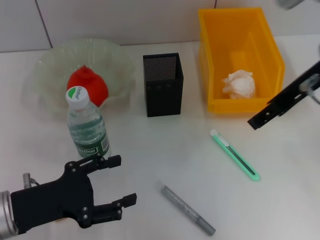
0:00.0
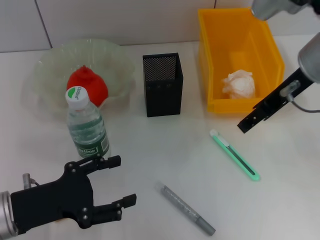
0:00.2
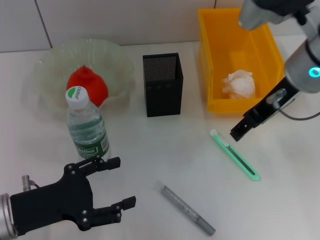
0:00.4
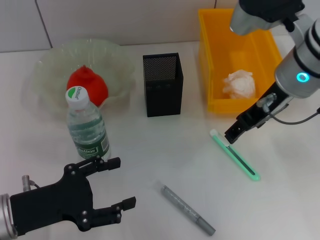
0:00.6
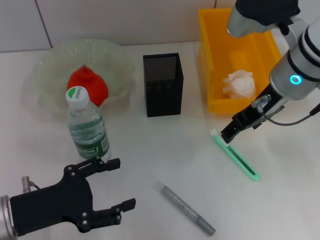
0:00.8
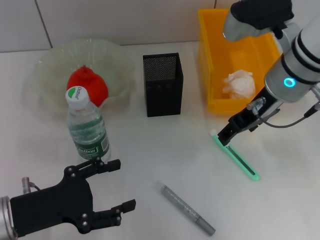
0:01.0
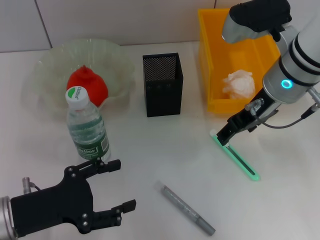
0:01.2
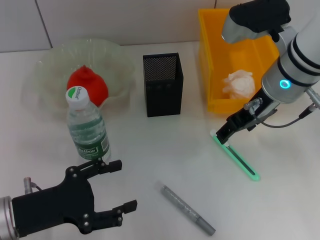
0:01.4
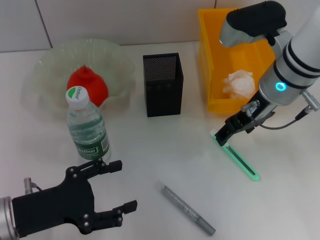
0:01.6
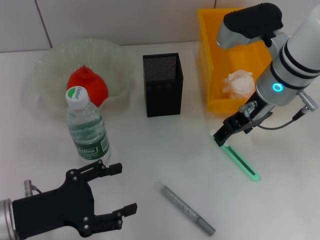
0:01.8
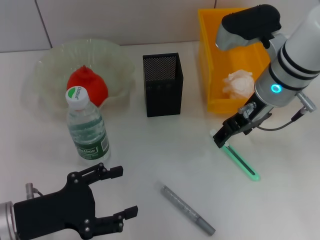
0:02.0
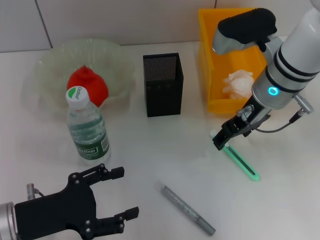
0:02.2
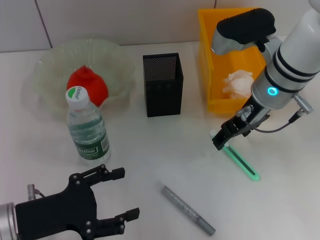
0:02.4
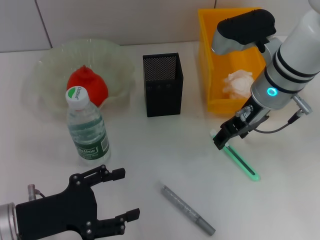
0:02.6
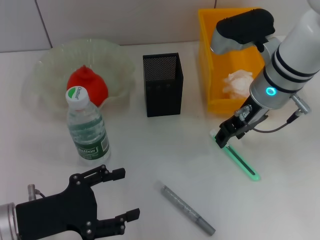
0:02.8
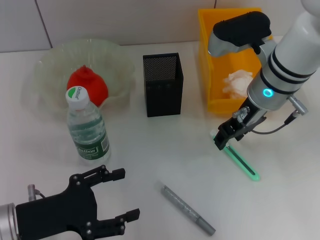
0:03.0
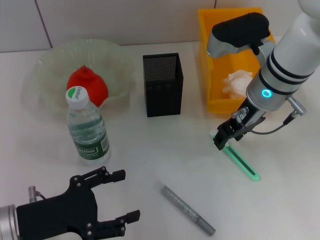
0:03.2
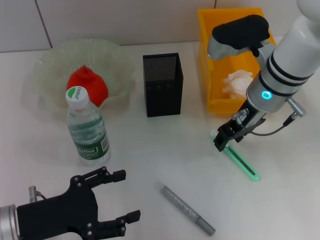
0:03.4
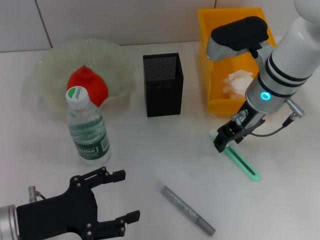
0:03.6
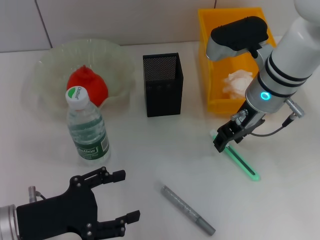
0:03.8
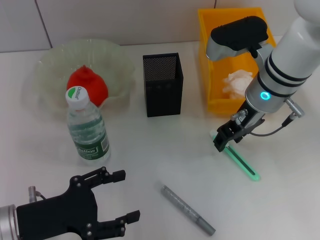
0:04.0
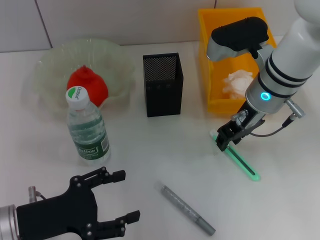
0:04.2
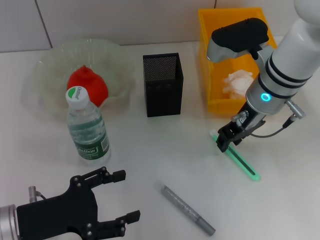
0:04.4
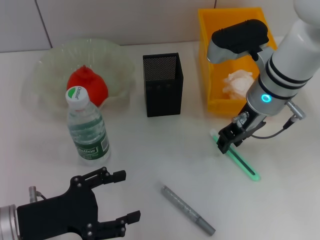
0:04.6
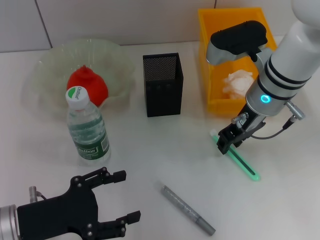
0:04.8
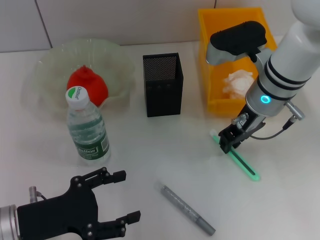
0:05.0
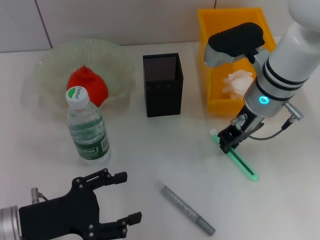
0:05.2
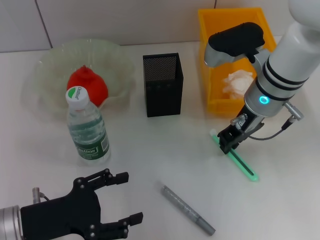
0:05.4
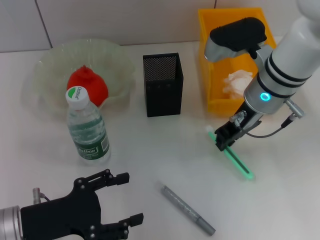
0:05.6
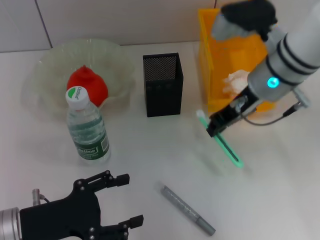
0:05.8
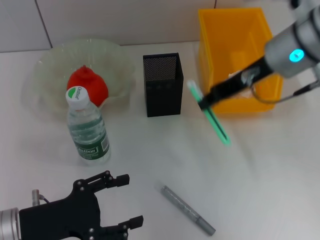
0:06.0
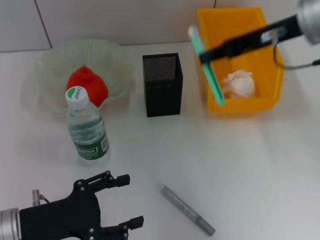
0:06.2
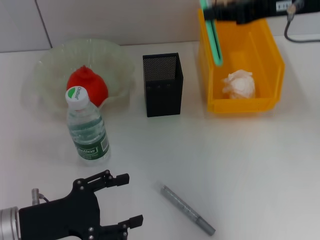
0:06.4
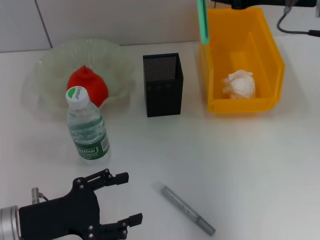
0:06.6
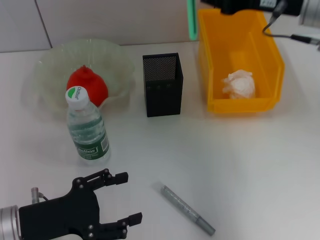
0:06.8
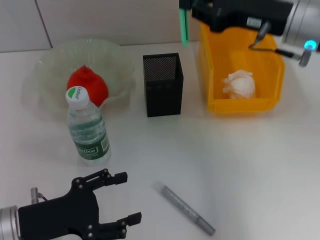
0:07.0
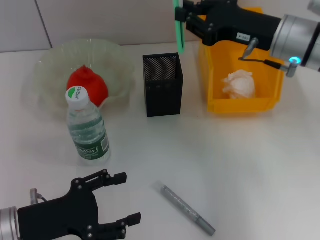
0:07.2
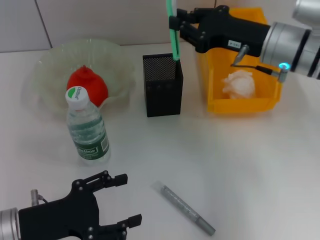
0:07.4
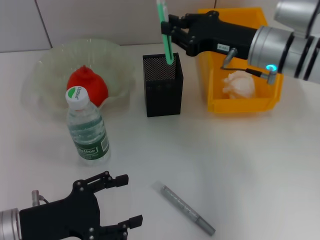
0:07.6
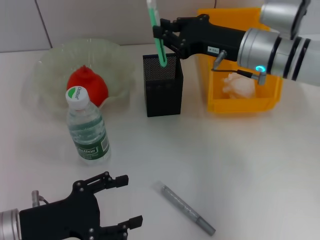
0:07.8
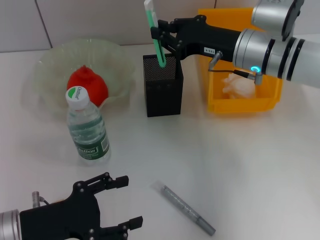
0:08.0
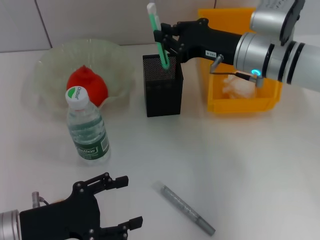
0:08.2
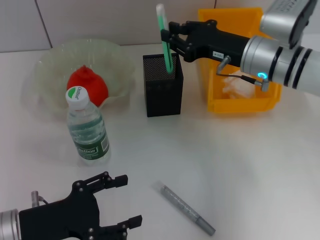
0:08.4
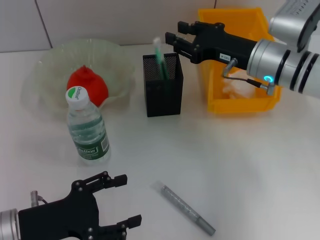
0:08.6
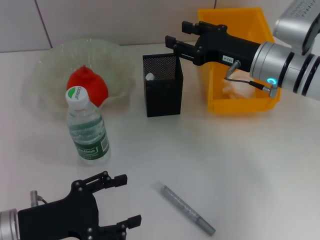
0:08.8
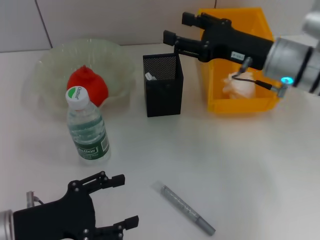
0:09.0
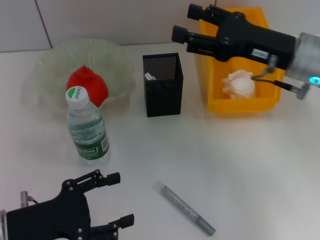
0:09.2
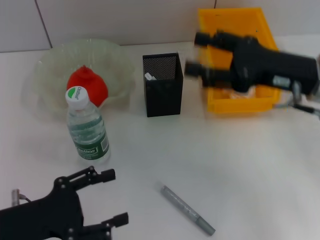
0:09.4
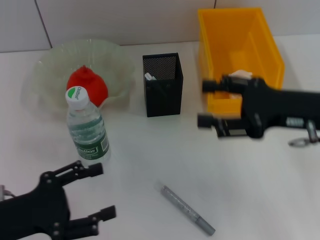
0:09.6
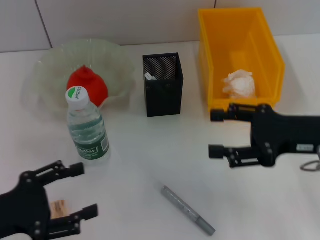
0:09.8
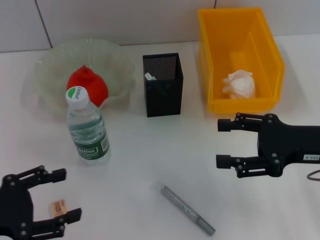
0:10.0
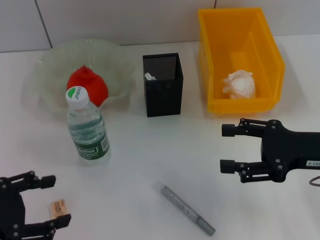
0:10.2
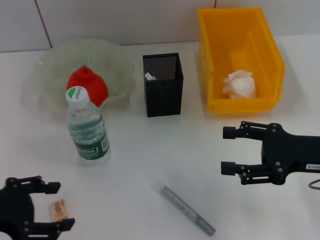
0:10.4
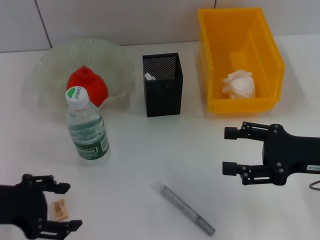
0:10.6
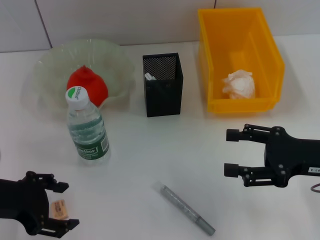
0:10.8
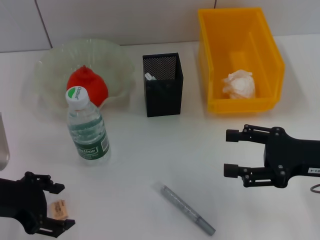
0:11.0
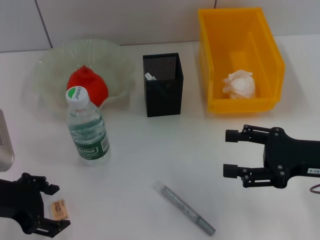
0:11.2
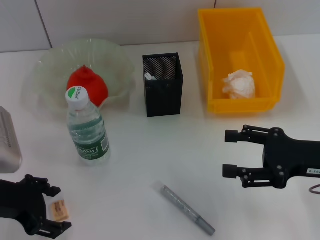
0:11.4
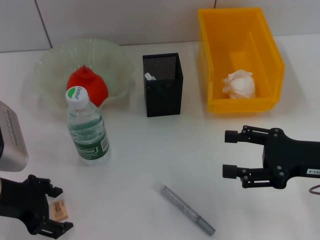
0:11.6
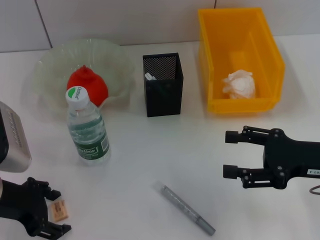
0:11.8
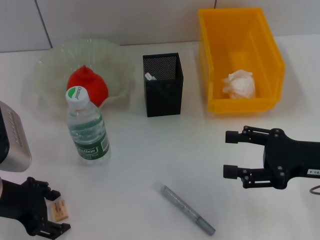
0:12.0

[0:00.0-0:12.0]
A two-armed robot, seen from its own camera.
Step, 0:00.0 to 0:05.2: Grab the blue utility knife with the right hand.
Step, 0:05.6 to 0:08.8: Place the blue utility knife into the pen holder with the right hand.
0:00.0 to 0:01.6: The right gripper moves downward, some 10 cm.
0:01.6 to 0:03.0: There are only small adjustments of the grippers.
0:03.0 to 0:04.4: Both grippers stay put.
0:04.4 to 0:06.0: The right gripper travels upward by approximately 5 cm, and closes.
0:06.0 to 0:07.6: The right gripper goes about 5 cm downward.
0:07.6 to 0:09.0: The right gripper opens.
0:09.0 to 0:10.4: The right gripper goes roughly 15 cm backward and to the right; the left gripper shifts roughly 10 cm upward.
0:10.4 to 0:12.0: The left gripper heads forward, covering some 5 cm.

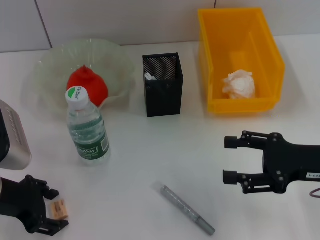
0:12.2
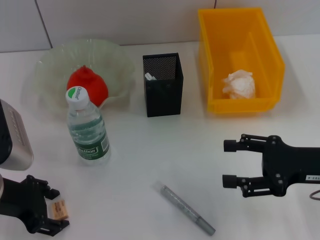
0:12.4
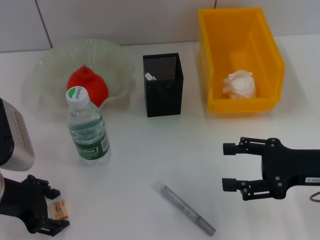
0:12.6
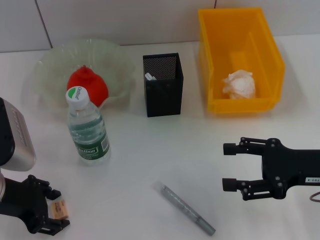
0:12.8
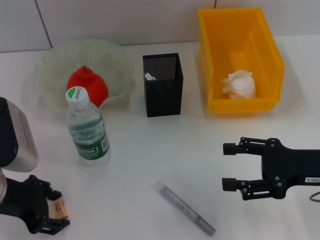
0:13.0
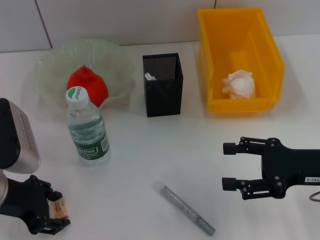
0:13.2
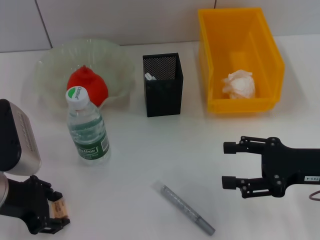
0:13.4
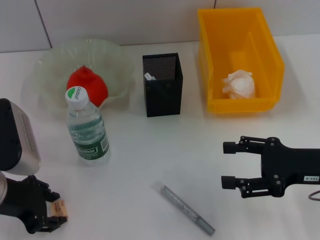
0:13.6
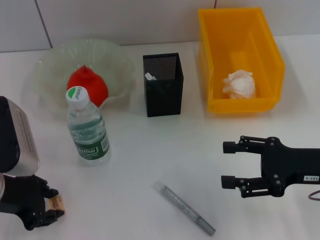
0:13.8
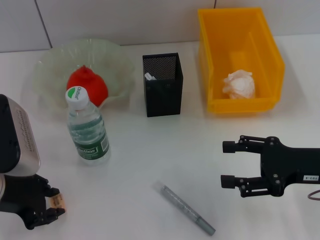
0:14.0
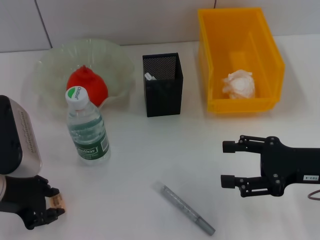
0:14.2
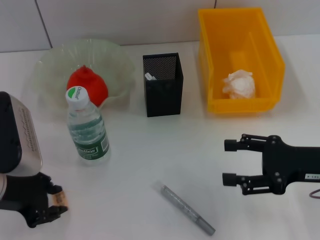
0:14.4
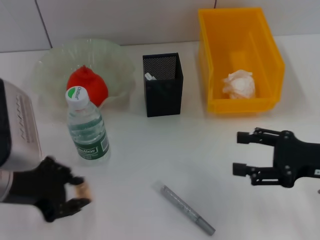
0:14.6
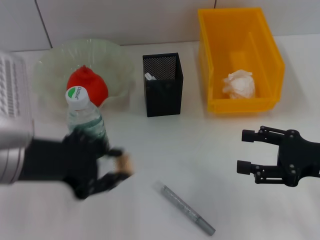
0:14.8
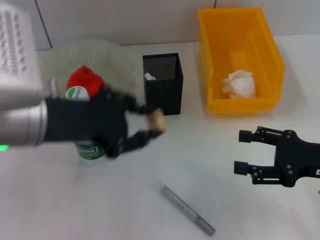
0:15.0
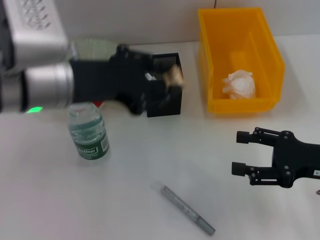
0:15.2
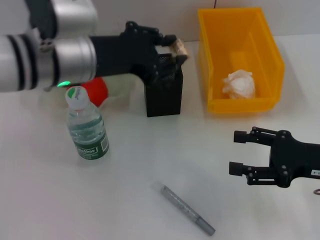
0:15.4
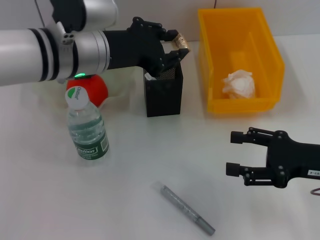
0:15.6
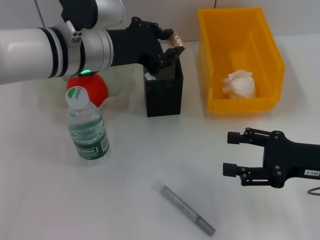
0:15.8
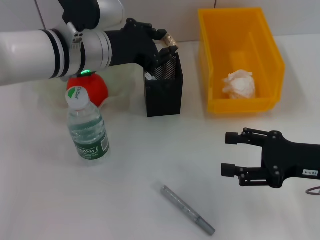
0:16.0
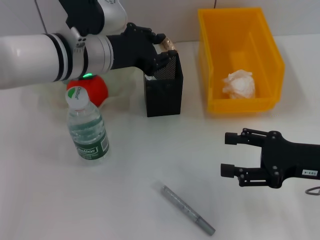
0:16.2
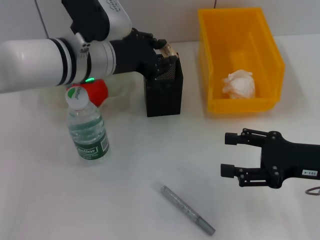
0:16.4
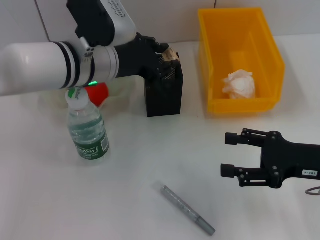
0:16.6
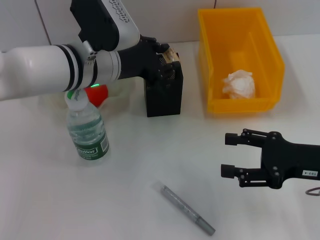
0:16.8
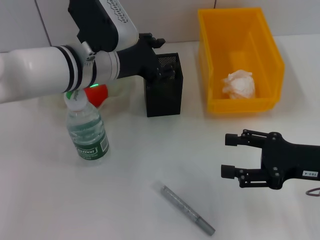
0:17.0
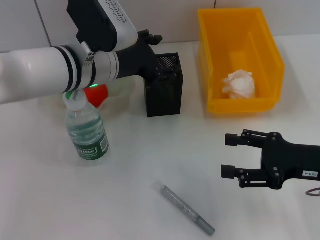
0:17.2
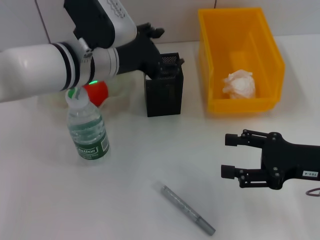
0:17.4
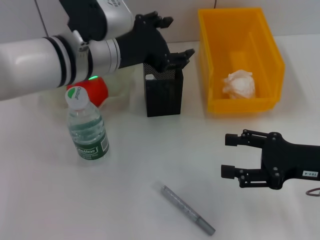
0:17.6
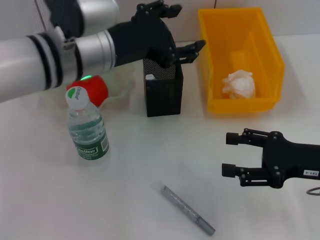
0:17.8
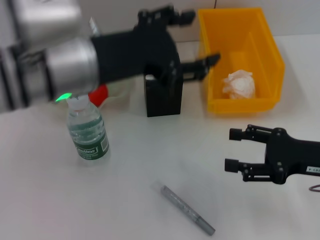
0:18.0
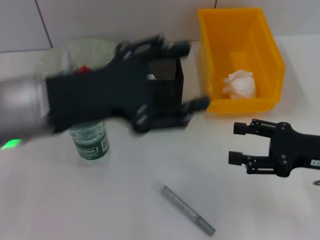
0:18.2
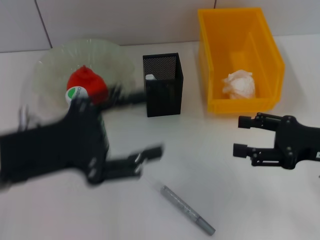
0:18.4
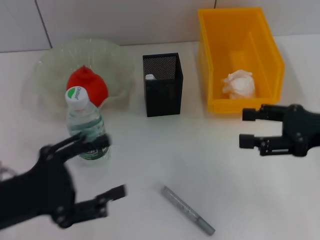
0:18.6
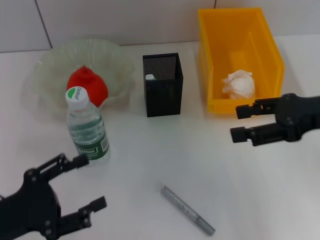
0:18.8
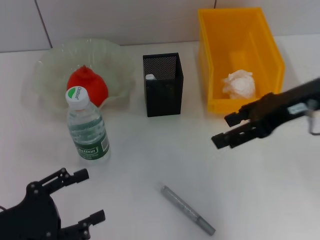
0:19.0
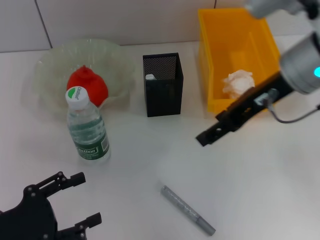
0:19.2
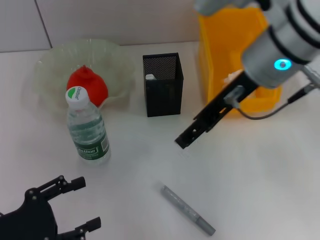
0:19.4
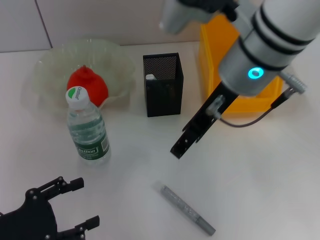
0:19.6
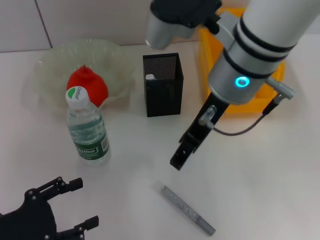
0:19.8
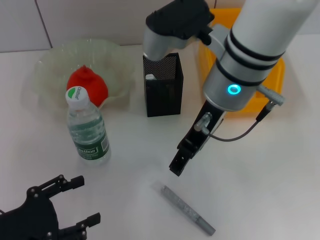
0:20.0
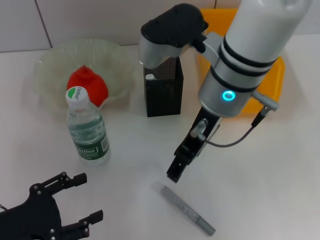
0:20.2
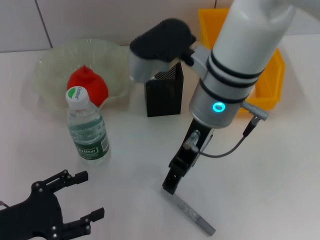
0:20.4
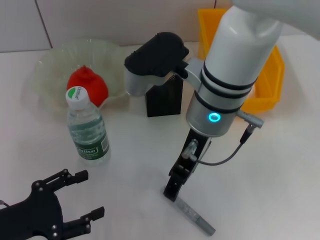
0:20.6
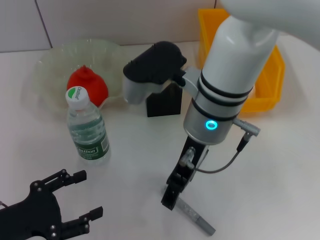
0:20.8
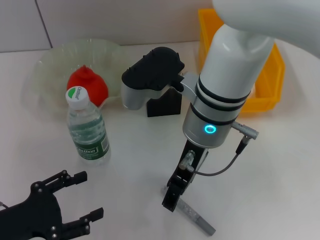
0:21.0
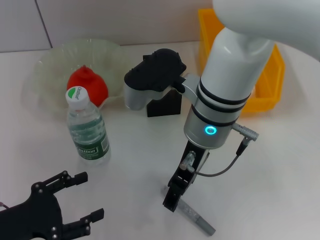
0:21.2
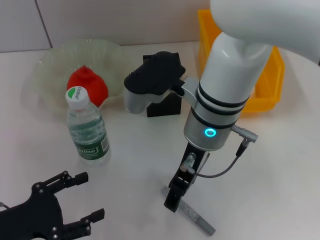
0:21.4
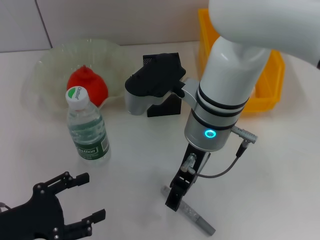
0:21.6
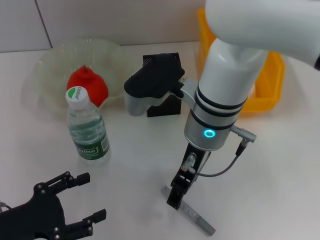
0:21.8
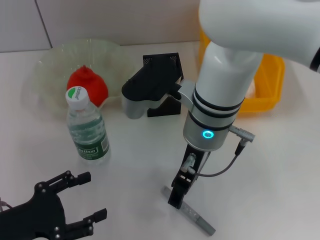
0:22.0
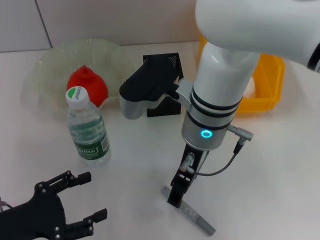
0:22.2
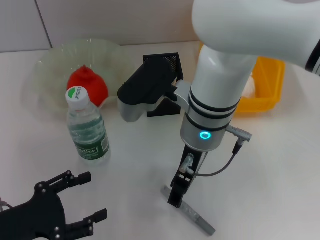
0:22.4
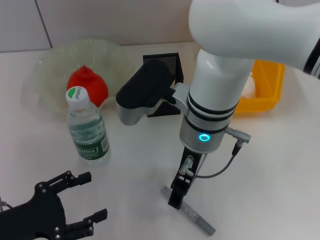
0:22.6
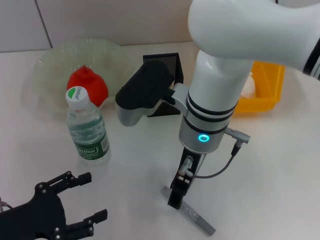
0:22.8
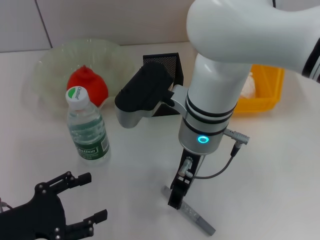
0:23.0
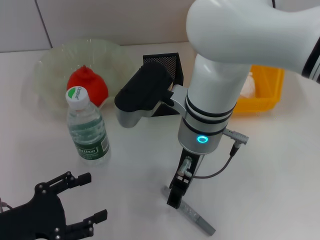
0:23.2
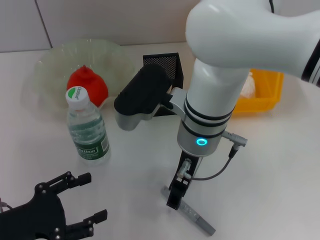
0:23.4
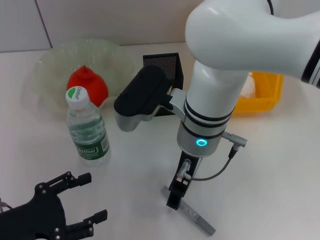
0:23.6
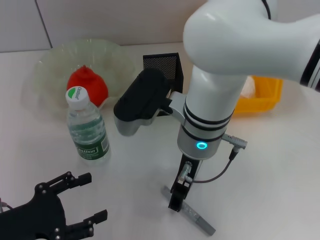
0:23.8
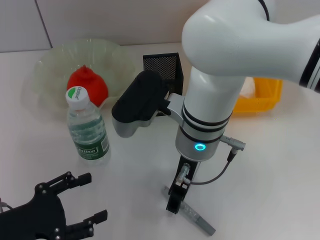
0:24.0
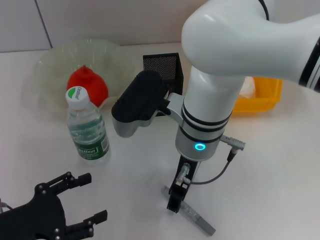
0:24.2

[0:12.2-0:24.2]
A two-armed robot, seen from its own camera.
Step, 0:12.2 to 0:14.2: Grab the eraser with the left hand.
Step, 0:14.4 to 0:17.0: Place the eraser into the pen holder with the left hand.
0:12.2 to 0:13.8: The left gripper closes.
0:13.8 to 0:15.2: The left gripper goes approximately 15 cm upward and to the right, and closes.
0:15.2 to 0:16.6: The left gripper travels forward and downward by about 10 cm.
0:16.6 to 0:18.2: The left gripper travels backward, to the left and upward by about 15 cm, and opens up.
0:18.2 to 0:19.8: The right gripper travels to the left and upward by about 25 cm, while the left gripper heads downward, to the left and backward, covering some 20 cm.
0:19.8 to 0:21.2: The right gripper travels downward by some 5 cm.
0:21.2 to 0:22.6: The grippers make only small movements.
0:22.6 to 0:24.2: Neither gripper changes place.
